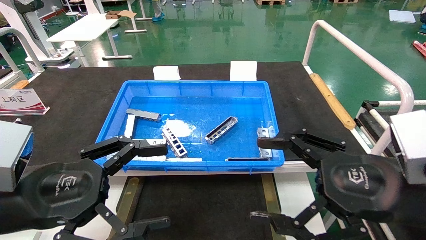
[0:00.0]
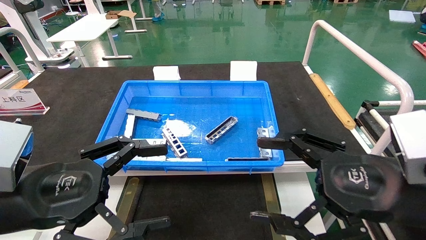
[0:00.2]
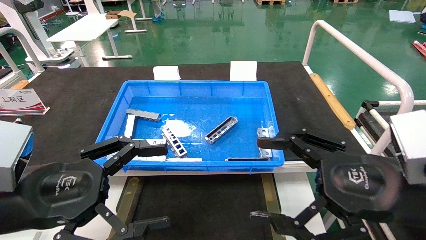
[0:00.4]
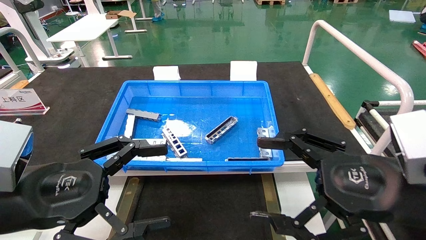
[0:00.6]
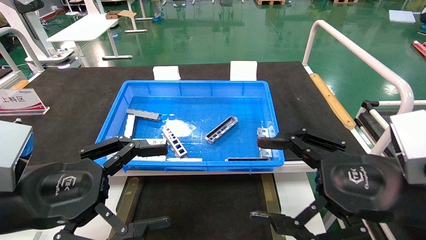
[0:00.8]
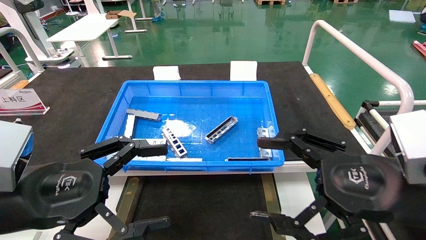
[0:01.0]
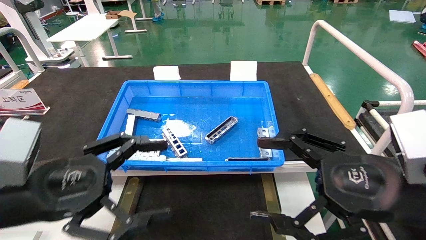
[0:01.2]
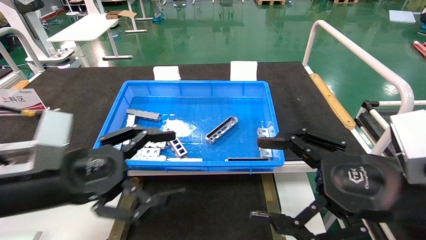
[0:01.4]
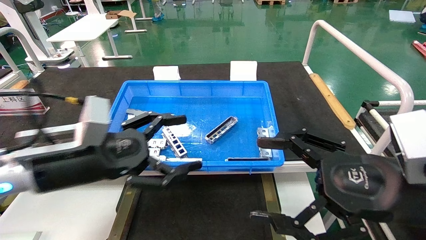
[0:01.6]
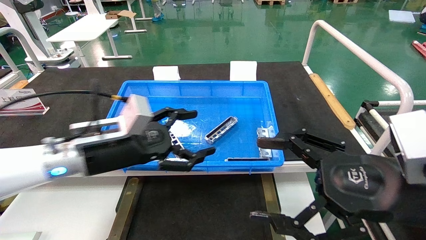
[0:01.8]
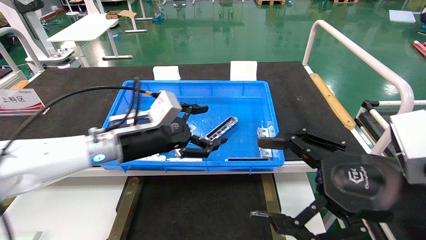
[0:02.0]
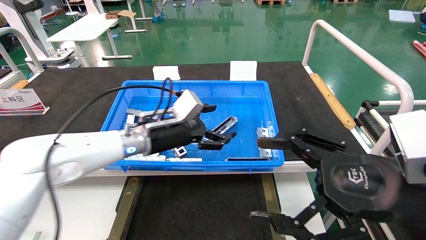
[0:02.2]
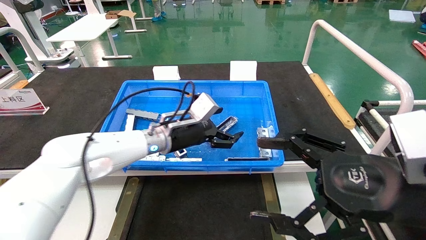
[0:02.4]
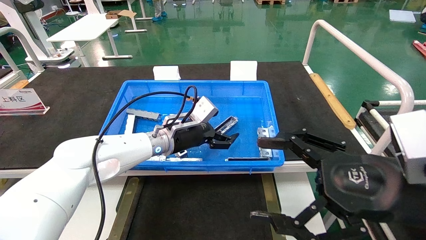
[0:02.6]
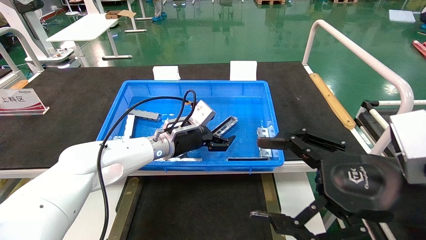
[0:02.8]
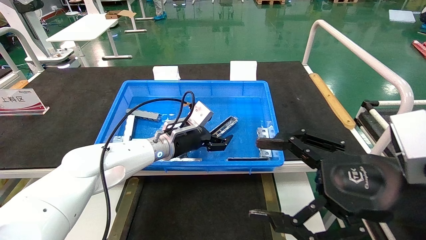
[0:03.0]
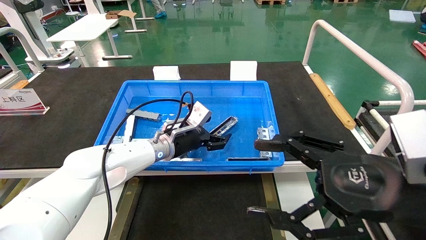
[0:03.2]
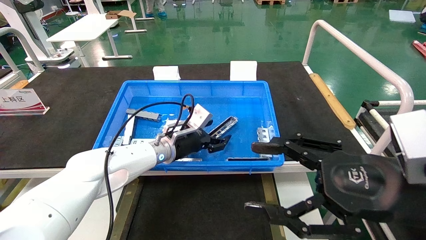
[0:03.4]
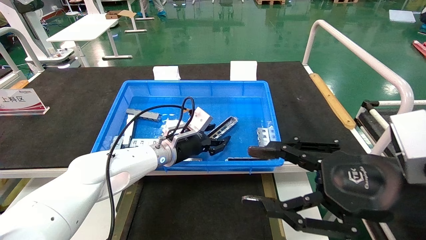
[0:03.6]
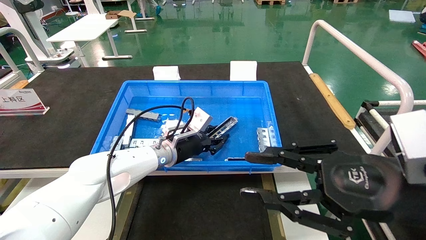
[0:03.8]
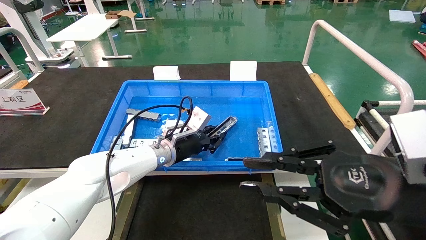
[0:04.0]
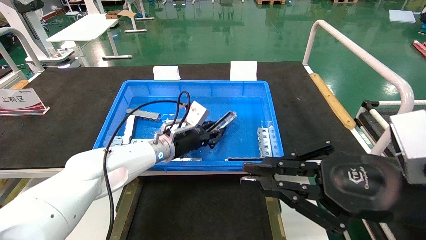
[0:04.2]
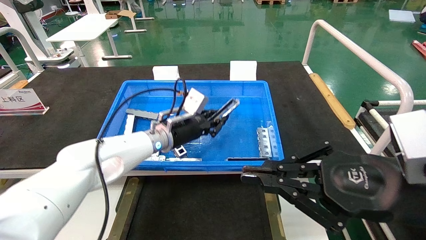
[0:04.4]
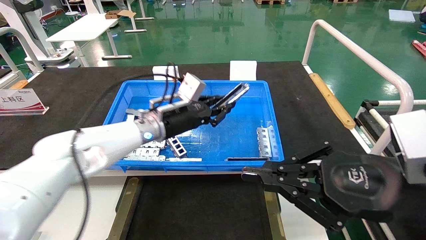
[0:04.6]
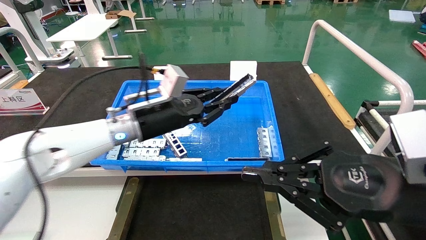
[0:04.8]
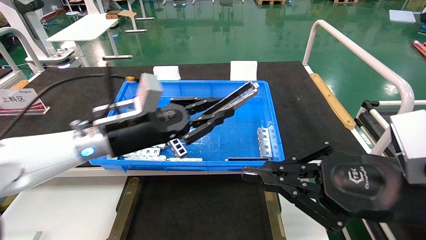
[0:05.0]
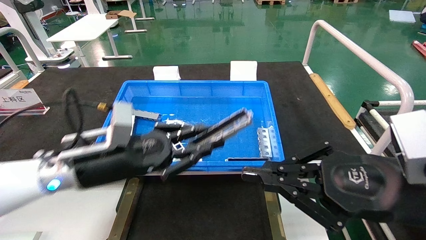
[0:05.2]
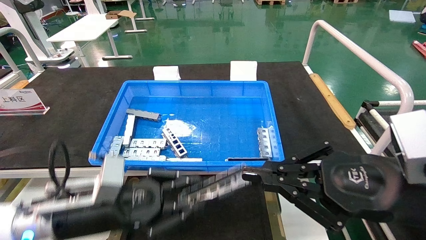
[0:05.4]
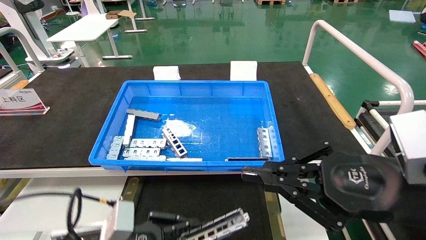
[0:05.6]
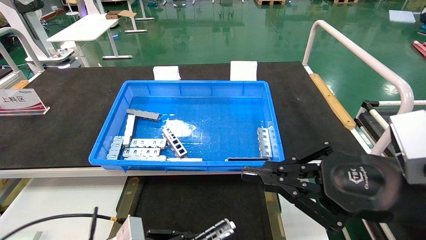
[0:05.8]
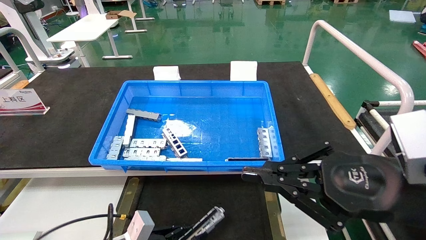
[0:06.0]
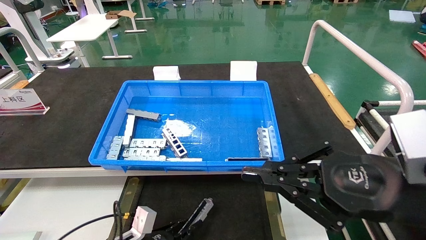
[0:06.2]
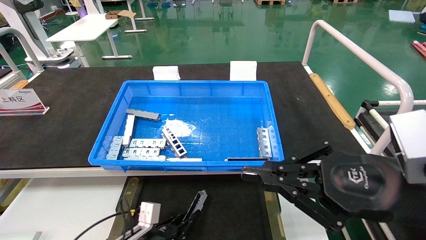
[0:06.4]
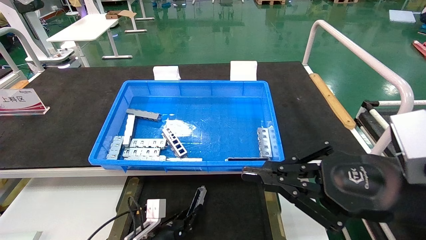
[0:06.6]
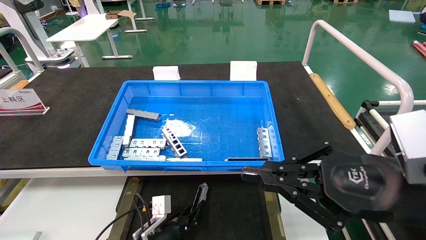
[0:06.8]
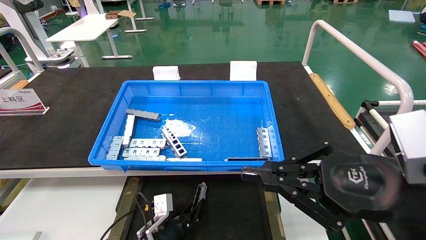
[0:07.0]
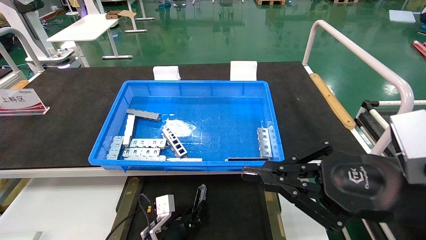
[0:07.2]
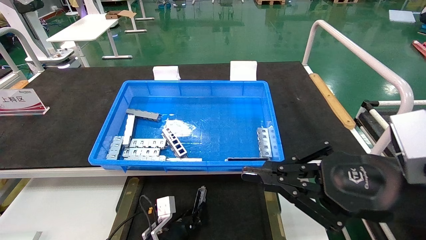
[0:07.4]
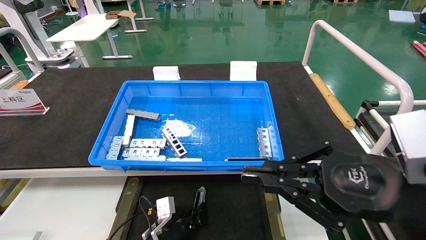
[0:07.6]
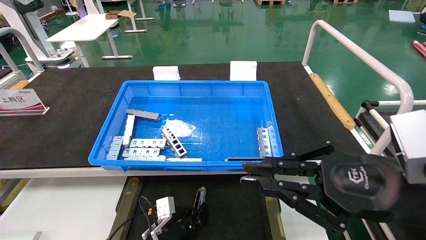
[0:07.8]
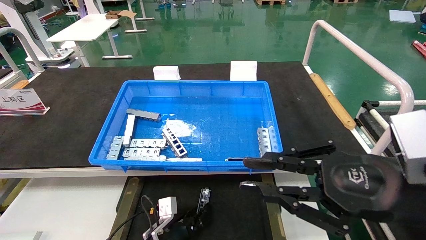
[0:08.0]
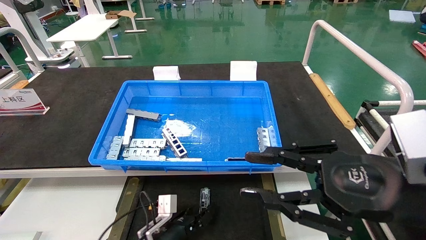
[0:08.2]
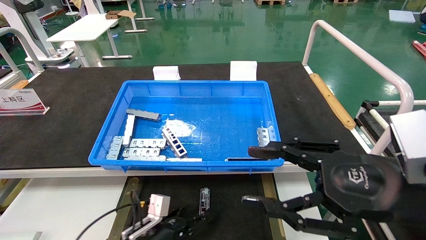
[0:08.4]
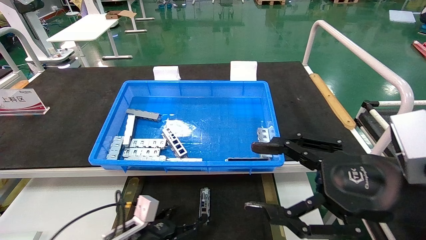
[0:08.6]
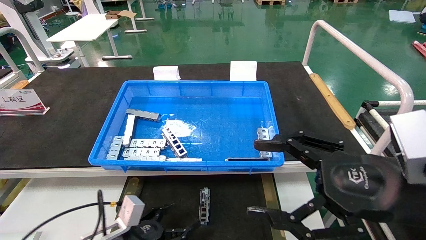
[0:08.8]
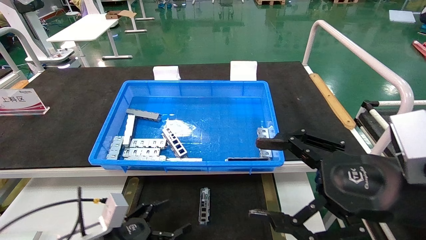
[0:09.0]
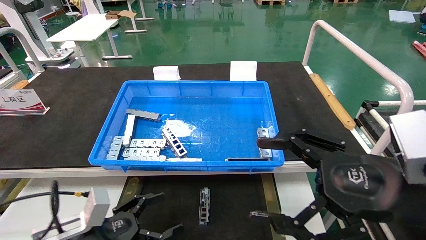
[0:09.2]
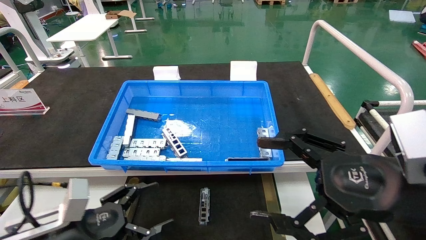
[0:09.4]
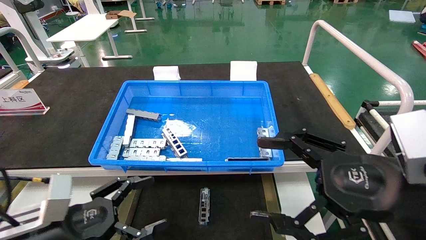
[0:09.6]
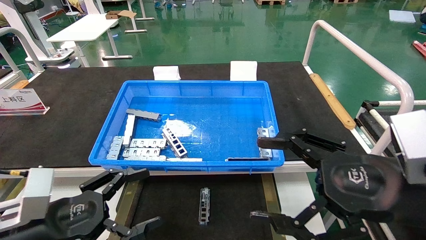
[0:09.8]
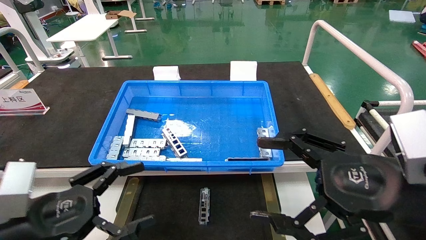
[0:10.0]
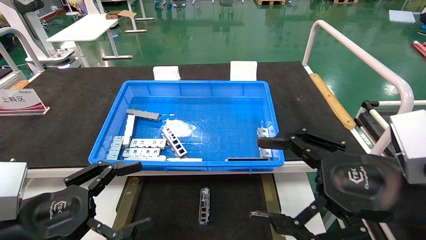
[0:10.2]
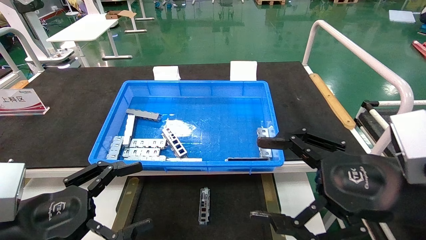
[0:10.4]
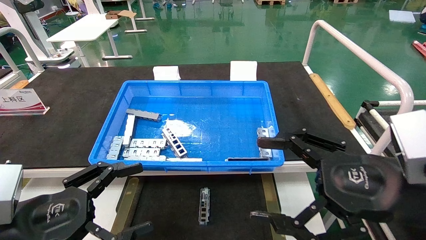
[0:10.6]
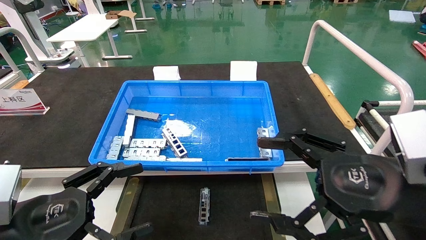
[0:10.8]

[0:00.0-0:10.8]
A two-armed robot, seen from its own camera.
Task of the whole recording: Grasp the part with one hand and place it on the black container.
Step, 0:01.4 to 0:03.8: Pick up the front USB bracket from the feeding area.
Step, 0:04.0 to 0:08.0: Place the front USB bracket into the box.
0:00.0 to 0:01.6: The left gripper goes some 10 cm forward.
0:01.6 to 0:03.0: The left gripper shifts some 25 cm forward and to the right.
0:03.0 to 0:04.6: The right gripper closes its fingers. Meanwhile the left gripper is displaced upward by some 5 cm, and closes up.
0:04.6 to 0:06.2: The left gripper is displaced downward and backward by about 30 cm.
0:06.2 to 0:07.8: The left gripper is displaced forward, to the right and downward by about 10 cm.
0:07.8 to 0:09.2: The left gripper goes approximately 25 cm upward, to the left and backward, and opens; the right gripper opens.
0:09.2 to 0:10.8: The left gripper is displaced upward and backward by roughly 15 cm.

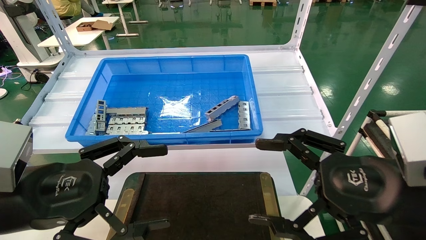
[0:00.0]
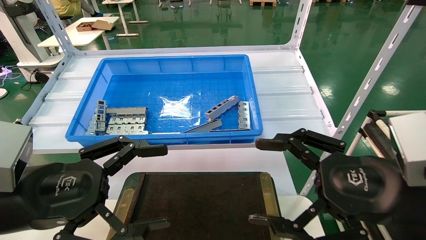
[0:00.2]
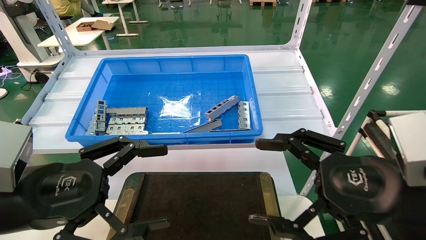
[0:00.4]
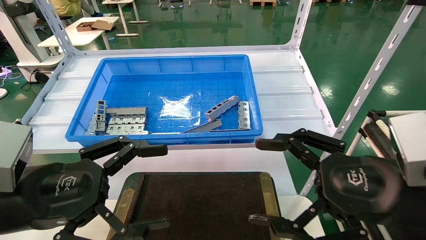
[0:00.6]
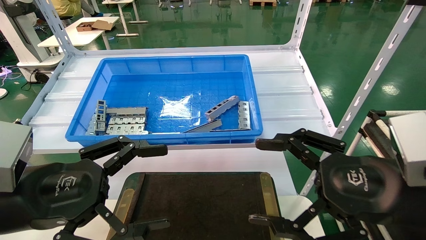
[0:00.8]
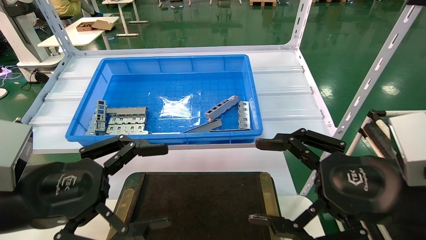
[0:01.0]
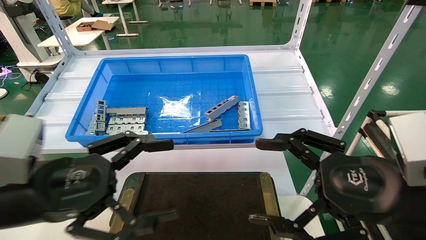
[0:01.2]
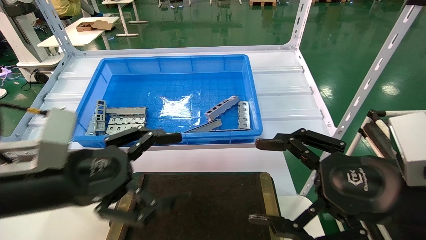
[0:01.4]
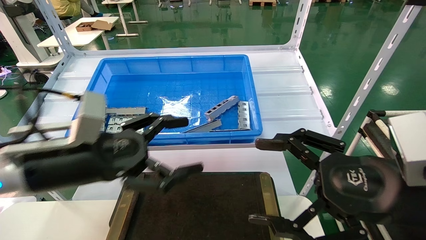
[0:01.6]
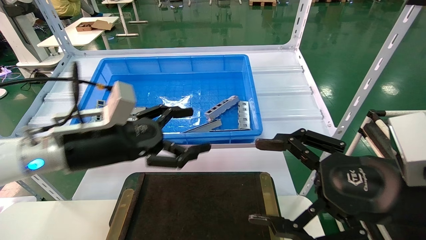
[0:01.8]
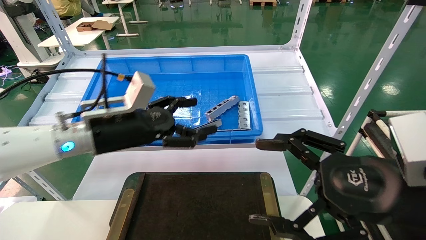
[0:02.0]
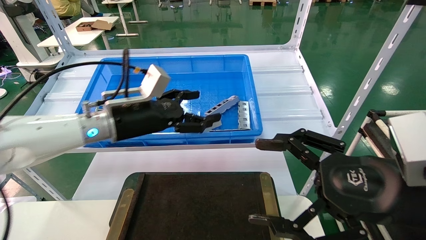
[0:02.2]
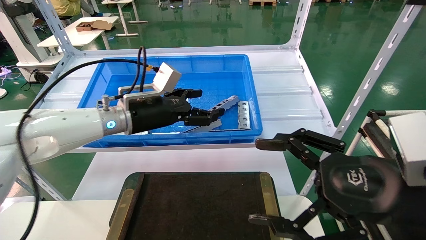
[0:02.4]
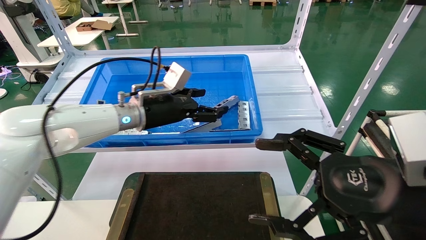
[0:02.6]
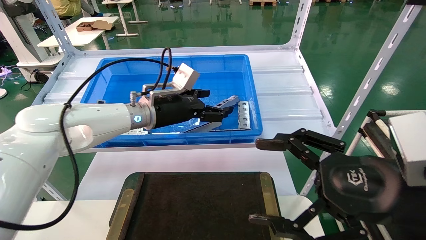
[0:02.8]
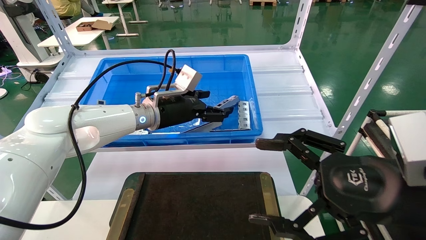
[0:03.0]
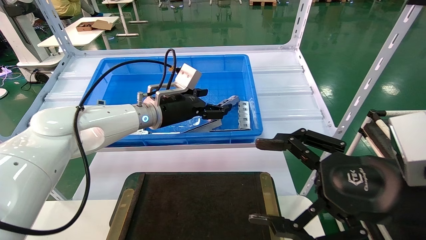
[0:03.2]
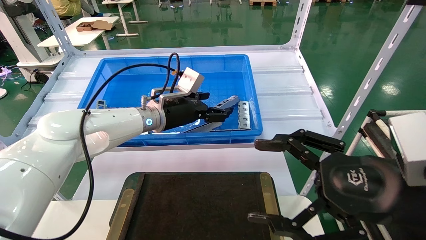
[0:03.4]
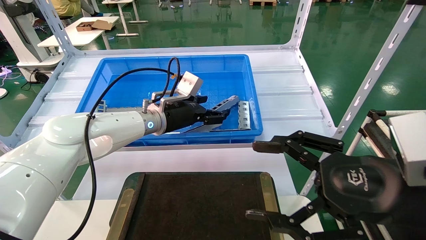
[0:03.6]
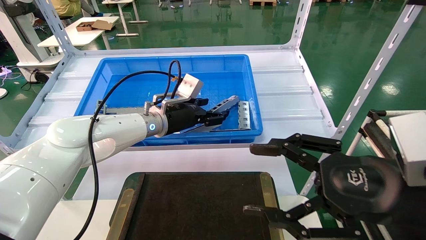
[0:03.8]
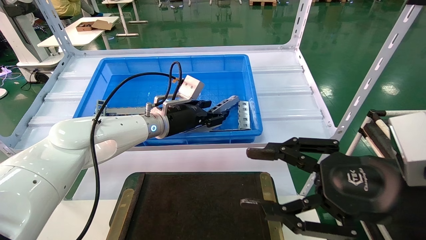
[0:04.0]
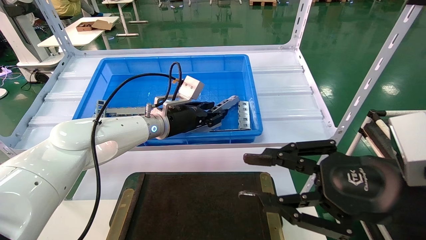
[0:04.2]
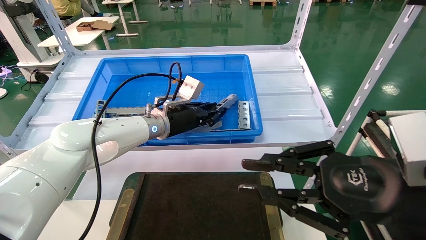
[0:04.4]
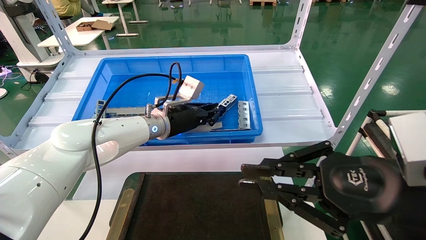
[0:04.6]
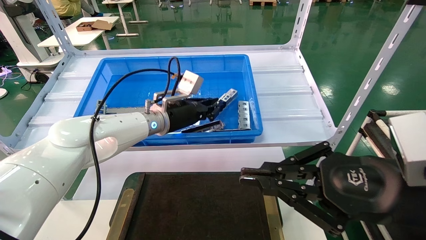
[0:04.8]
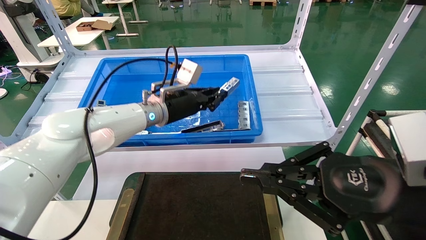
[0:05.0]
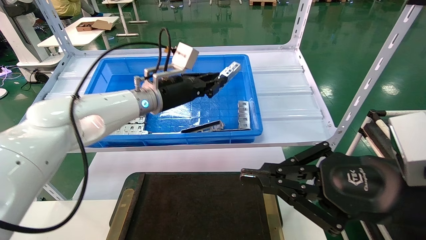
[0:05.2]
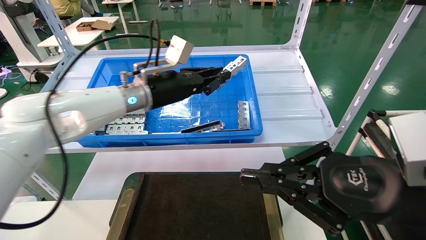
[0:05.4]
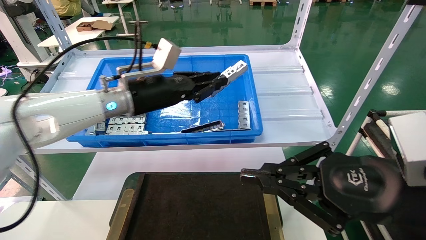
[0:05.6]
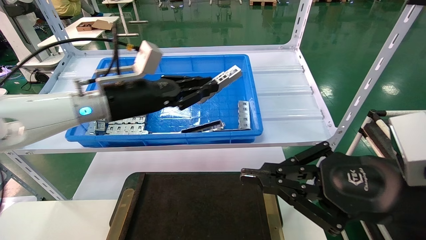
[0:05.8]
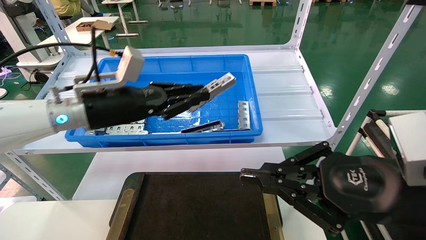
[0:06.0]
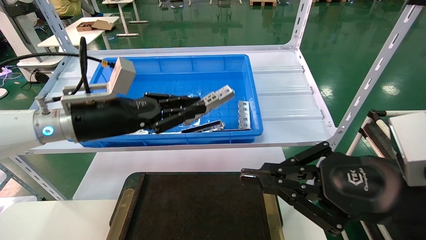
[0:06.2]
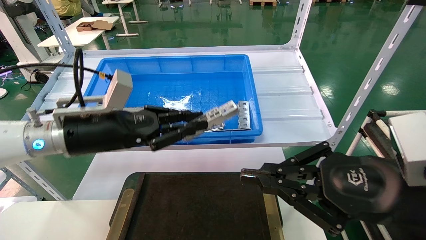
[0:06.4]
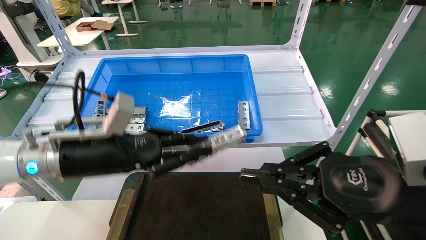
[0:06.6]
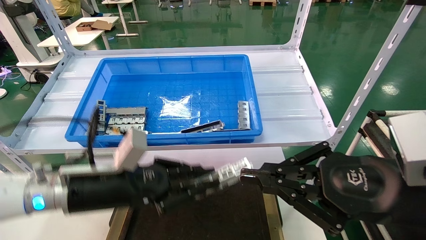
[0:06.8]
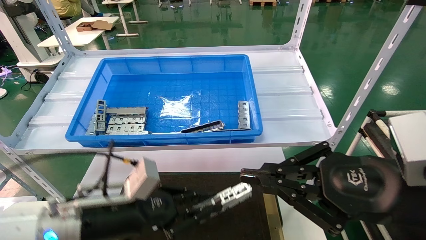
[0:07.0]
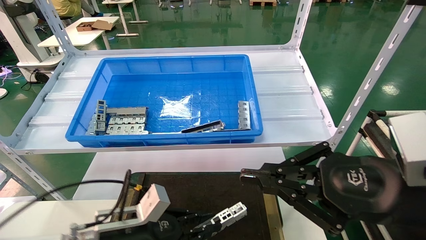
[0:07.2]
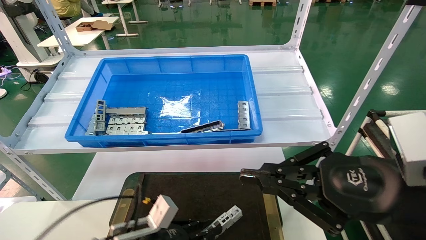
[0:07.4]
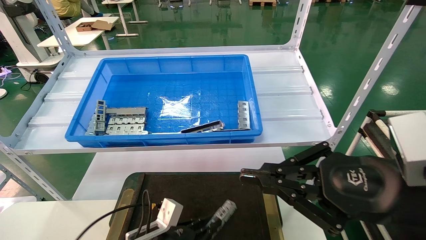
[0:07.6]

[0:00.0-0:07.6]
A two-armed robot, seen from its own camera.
Task of the whole recording: Grasp the part with one hand and place it on the black container.
Step, 0:01.6 to 0:05.0: Pick up the front USB bracket from the feeding area.
0:00.0 to 0:01.6: The left gripper is displaced forward by about 10 cm.
0:01.6 to 0:03.0: The left gripper heads forward and to the right, covering approximately 20 cm.
0:03.0 to 0:04.6: The left gripper closes up, while the right gripper closes.
0:04.6 to 0:06.0: The left gripper is displaced backward, to the left and upward by roughly 15 cm.
0:06.0 to 0:07.6: The left gripper heads downward, covering roughly 30 cm.
